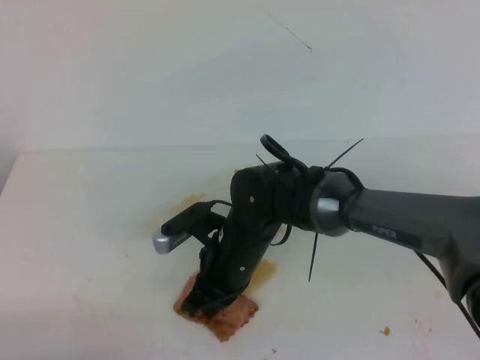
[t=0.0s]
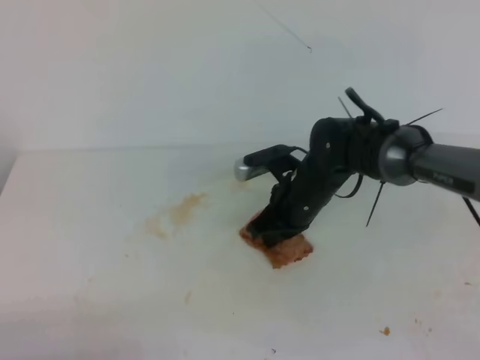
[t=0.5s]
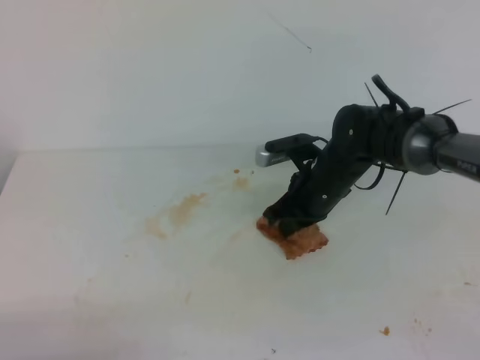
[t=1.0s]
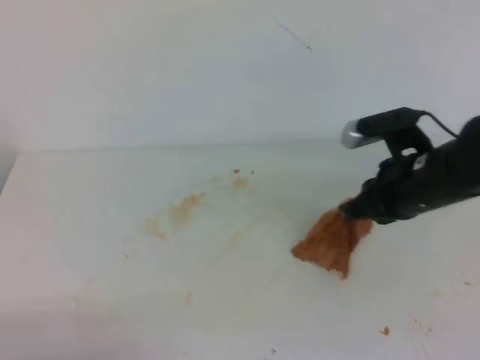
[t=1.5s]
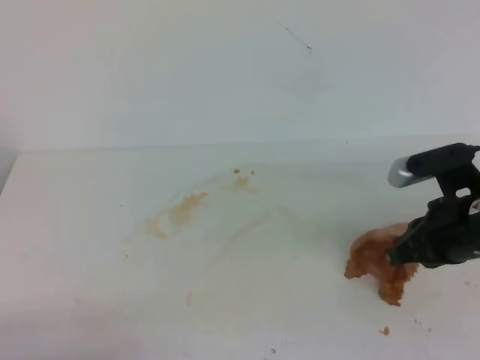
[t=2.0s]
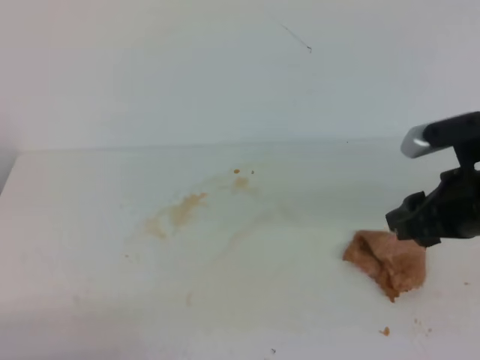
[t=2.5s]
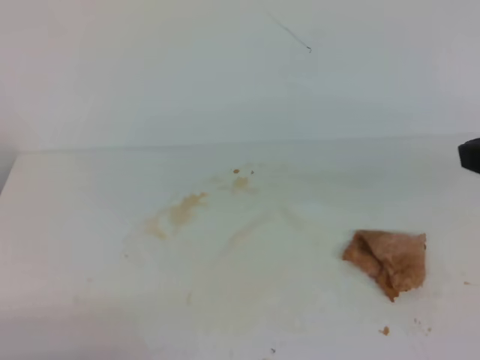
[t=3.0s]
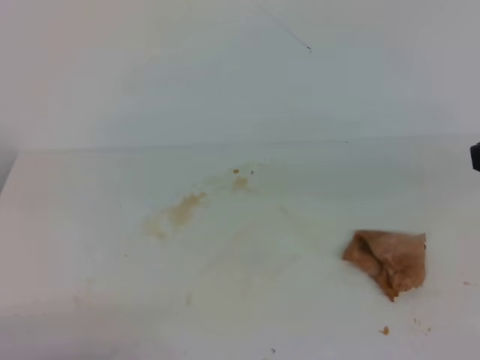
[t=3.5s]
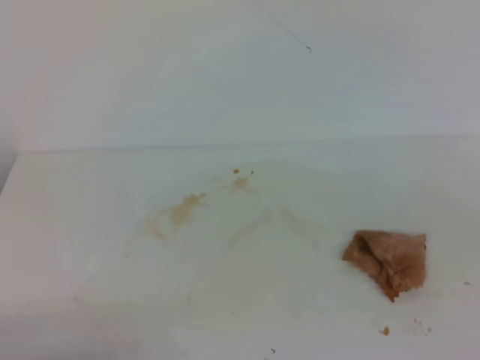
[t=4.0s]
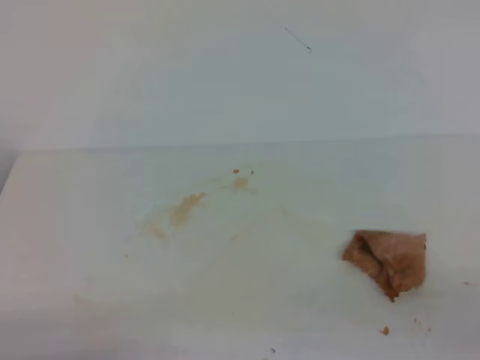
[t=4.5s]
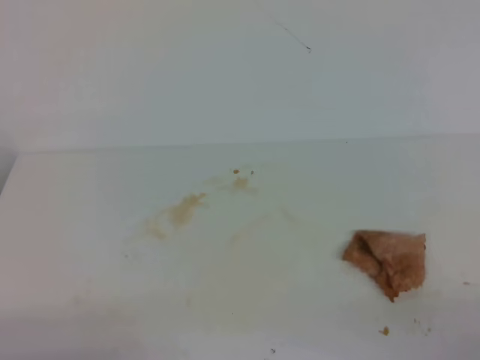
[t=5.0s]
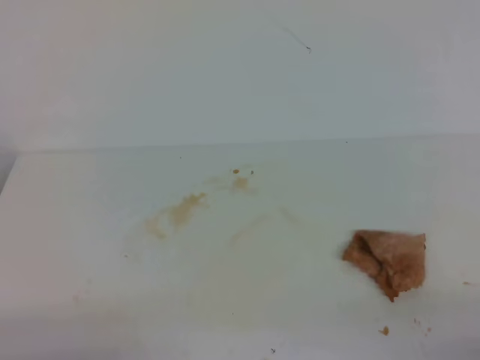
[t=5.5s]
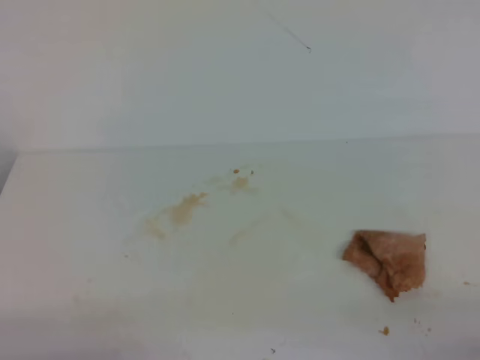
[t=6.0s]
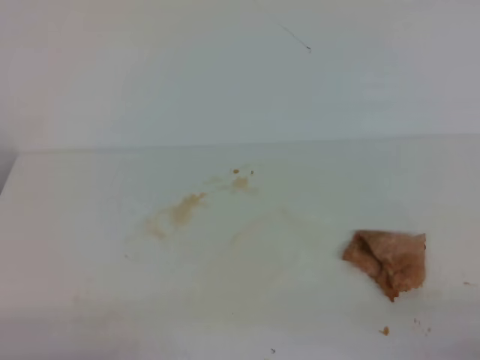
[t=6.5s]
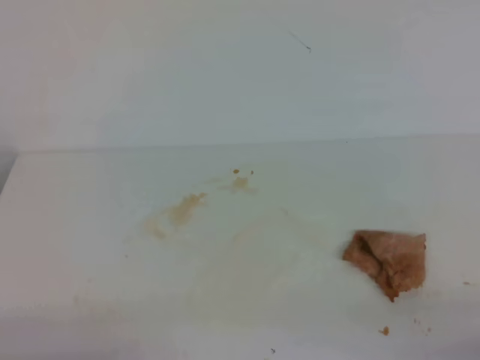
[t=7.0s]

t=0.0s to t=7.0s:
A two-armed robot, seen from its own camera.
t=0.0s to t=2.0s: The right gripper shifts roughly 25 cm to the right.
t=2.0s to t=3.5s: The right gripper moves upward and backward, roughly 20 cm, and opens, then closes again.
